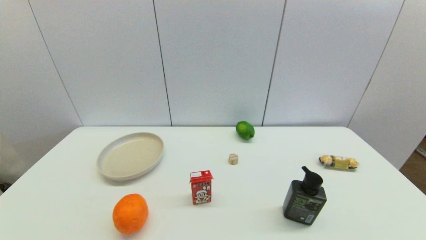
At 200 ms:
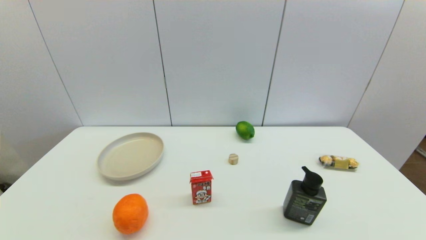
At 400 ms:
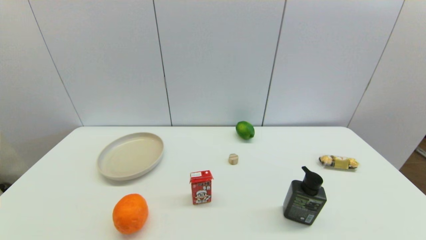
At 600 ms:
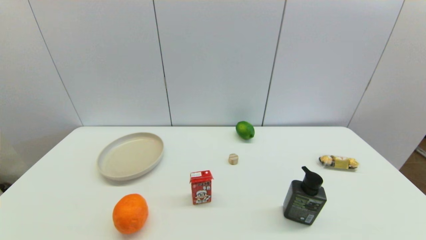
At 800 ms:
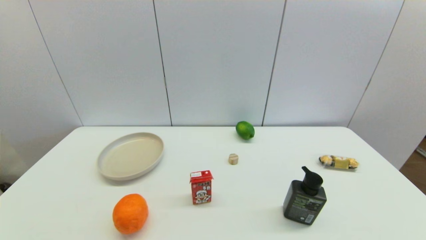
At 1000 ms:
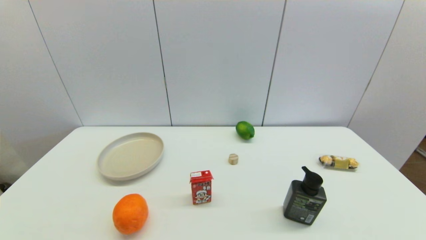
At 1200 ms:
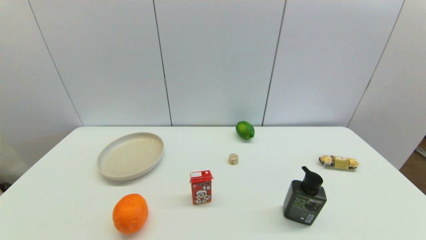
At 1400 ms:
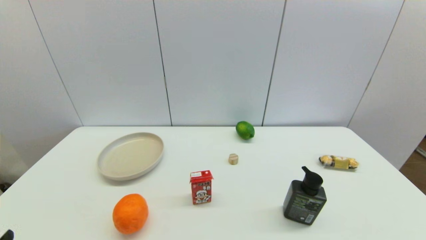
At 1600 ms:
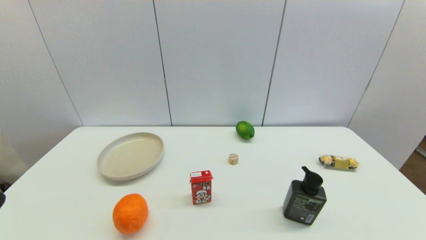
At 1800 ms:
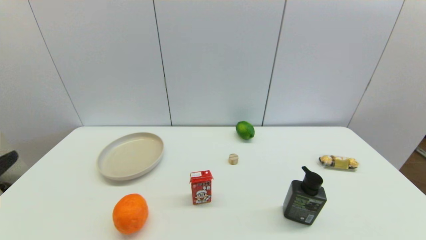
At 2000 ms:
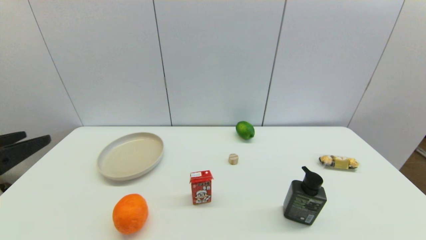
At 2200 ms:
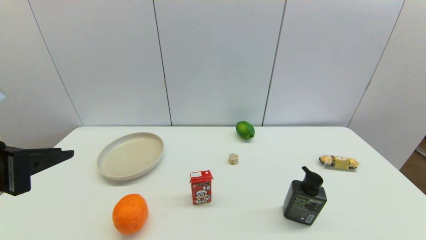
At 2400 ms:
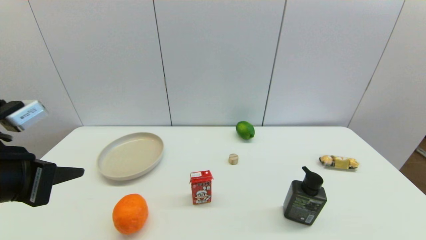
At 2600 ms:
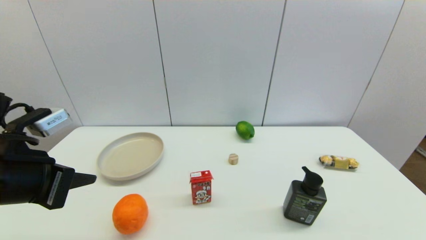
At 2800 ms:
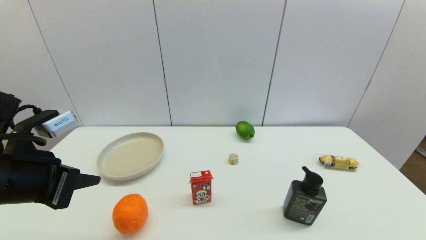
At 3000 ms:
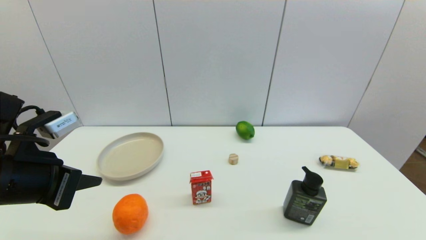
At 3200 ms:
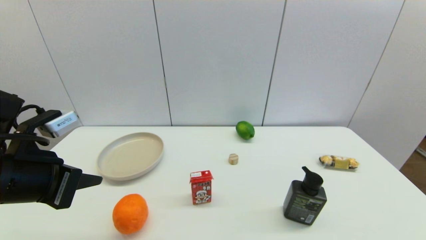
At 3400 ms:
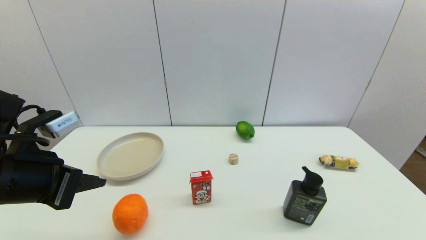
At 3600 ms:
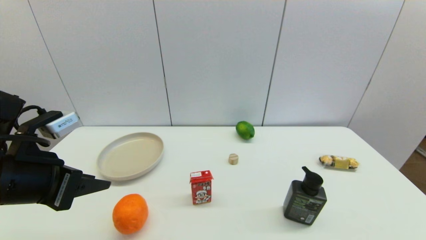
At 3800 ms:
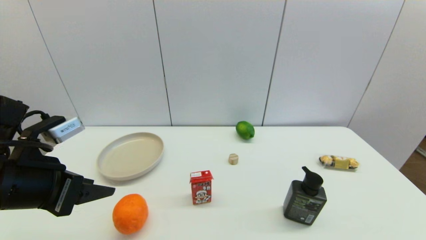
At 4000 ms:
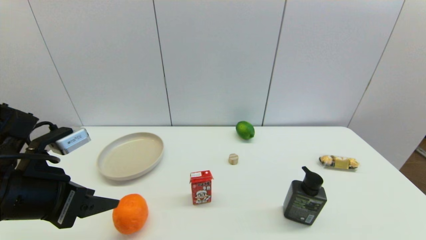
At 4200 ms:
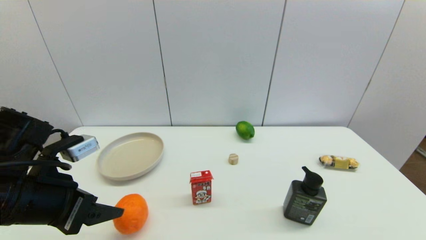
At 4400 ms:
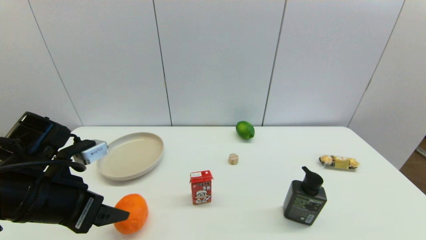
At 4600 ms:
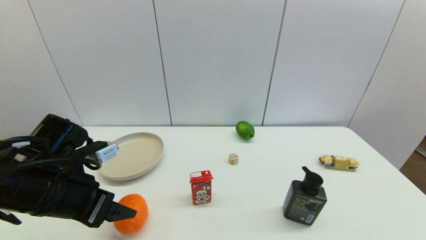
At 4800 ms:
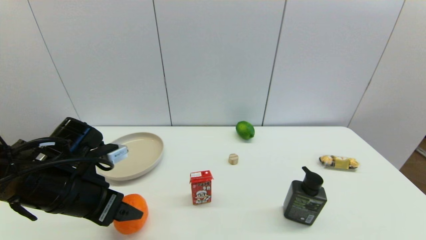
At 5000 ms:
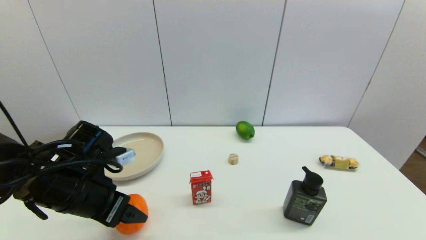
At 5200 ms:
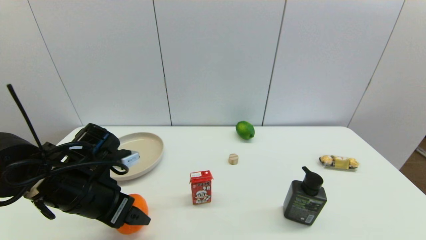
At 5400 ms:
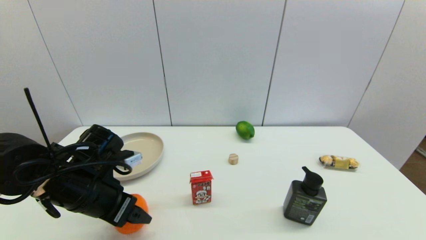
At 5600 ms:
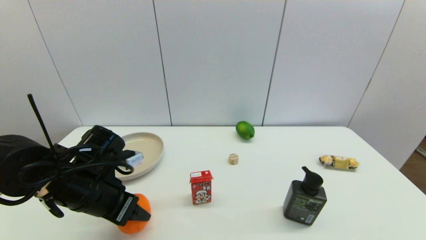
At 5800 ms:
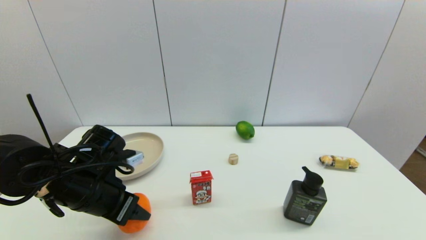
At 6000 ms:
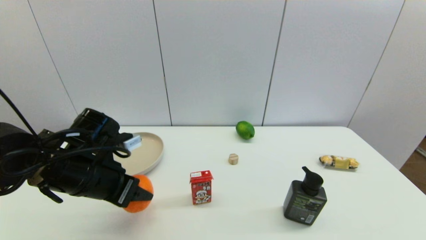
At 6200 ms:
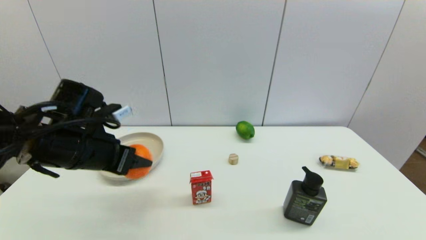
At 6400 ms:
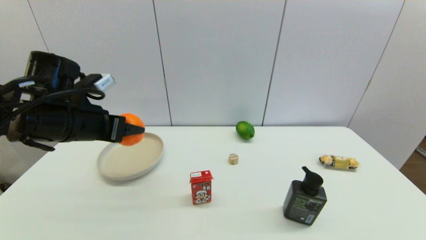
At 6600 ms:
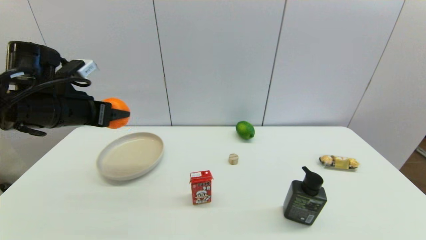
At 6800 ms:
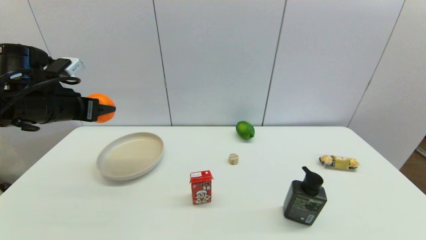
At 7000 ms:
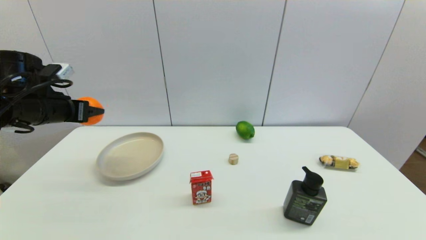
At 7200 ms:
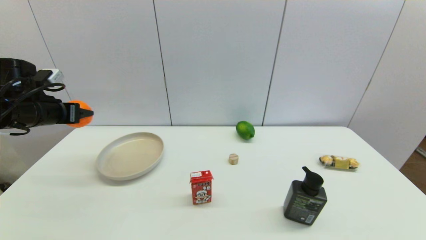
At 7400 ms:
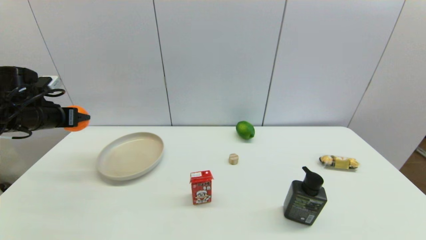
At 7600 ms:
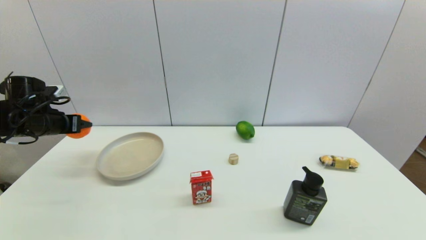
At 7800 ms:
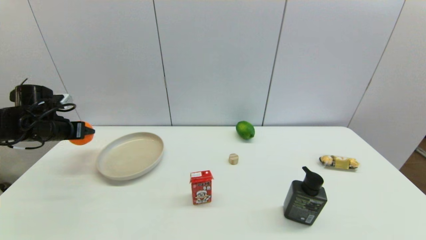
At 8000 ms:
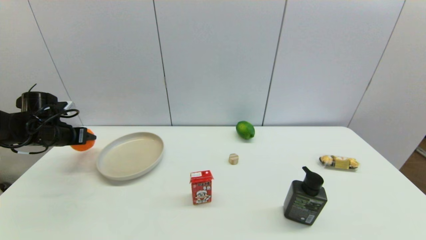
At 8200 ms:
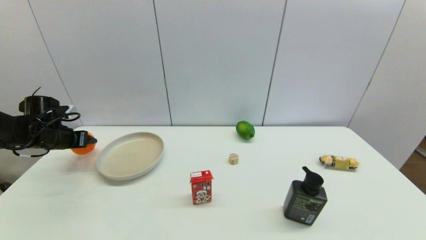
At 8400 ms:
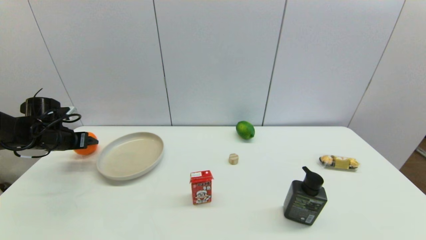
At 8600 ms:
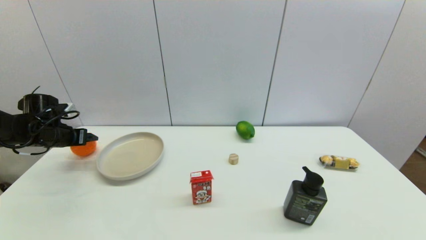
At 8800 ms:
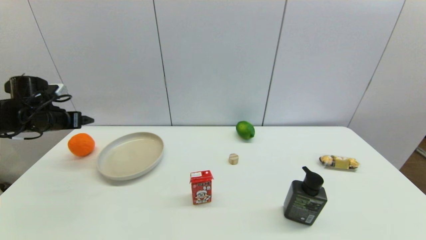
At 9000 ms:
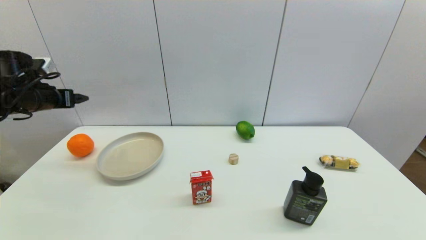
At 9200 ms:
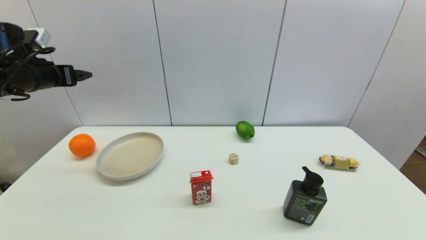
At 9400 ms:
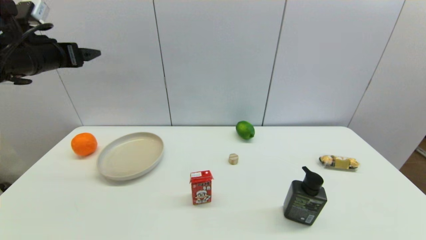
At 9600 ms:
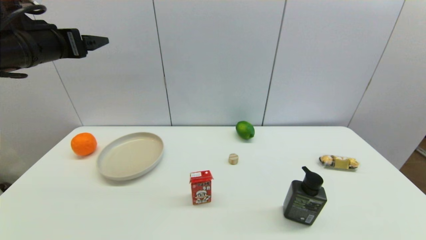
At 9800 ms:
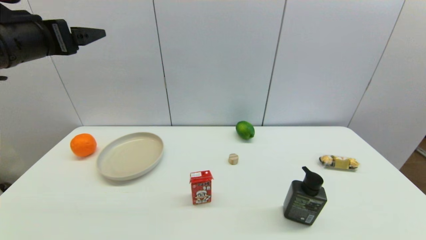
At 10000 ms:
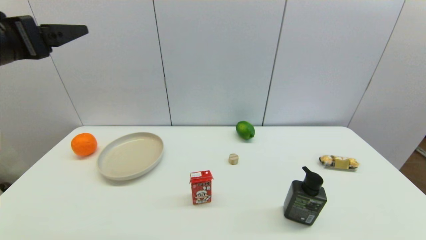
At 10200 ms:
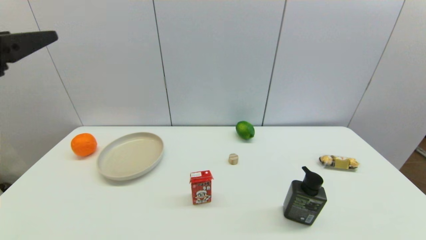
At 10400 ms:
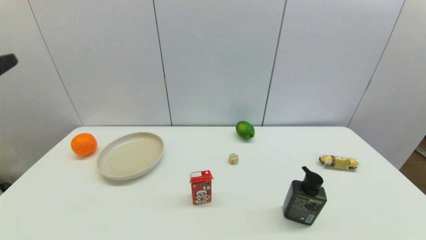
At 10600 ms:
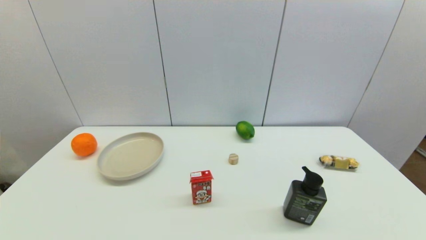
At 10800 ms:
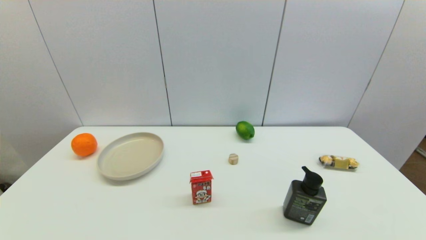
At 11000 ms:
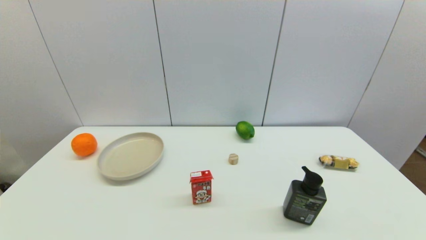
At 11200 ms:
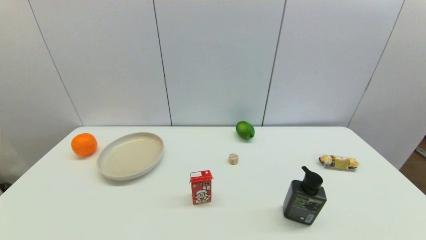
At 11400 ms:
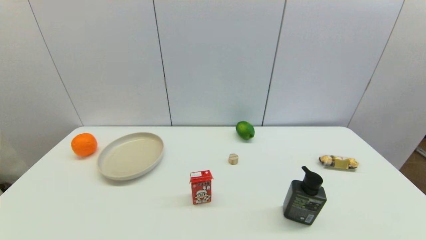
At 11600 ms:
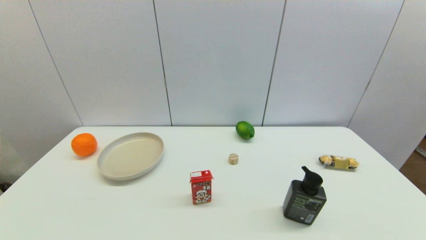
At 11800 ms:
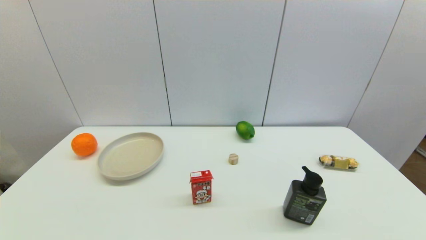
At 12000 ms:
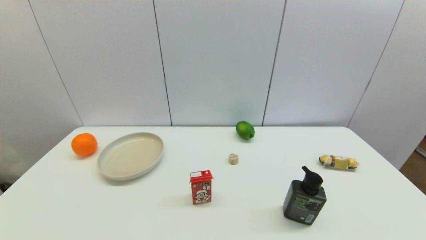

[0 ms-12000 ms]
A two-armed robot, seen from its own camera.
Step, 1400 ms to 5600 ms: Grasp the orange with left gripper.
Step, 6000 ms to 8400 ms: Place the orange on the table with left gripper.
1600 ms to 3000 ms: The left gripper is displaced forward by some 15 cm, and closes up.
3000 ms to 4400 ms: The left gripper changes place by approximately 5 cm, and opens.
4400 ms to 6000 ms: The left gripper heads forward, covering approximately 5 cm.
6000 ms to 7600 ms: The left gripper is displaced to the left and forward by some 20 cm.
7600 ms to 9000 ms: The left gripper shifts approximately 5 cm upward.
9000 ms to 10400 ms: The left gripper goes about 30 cm backward.

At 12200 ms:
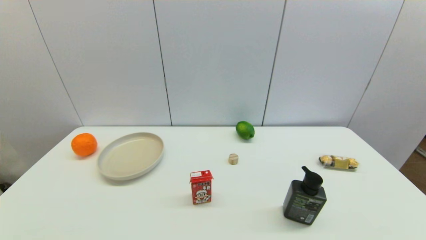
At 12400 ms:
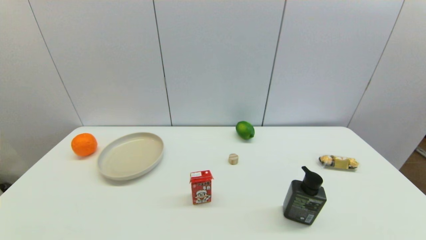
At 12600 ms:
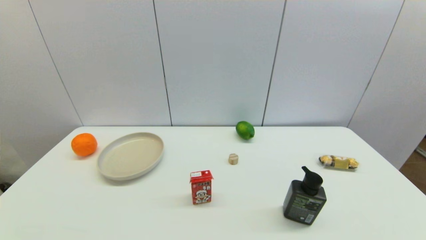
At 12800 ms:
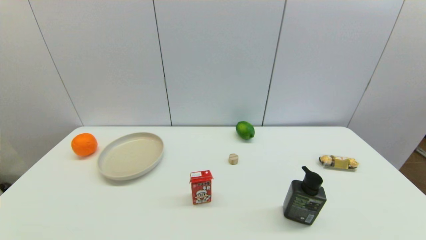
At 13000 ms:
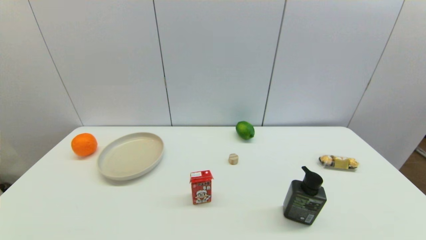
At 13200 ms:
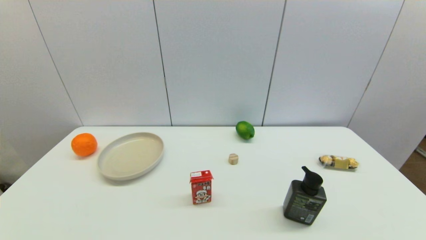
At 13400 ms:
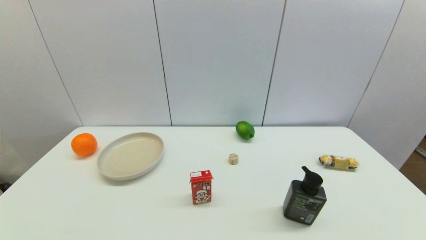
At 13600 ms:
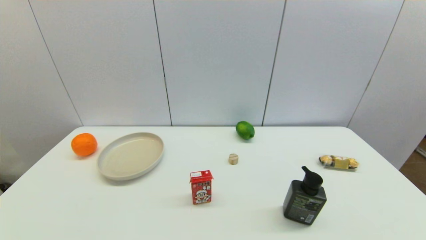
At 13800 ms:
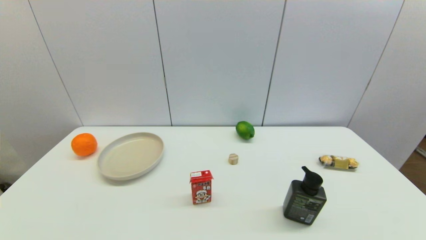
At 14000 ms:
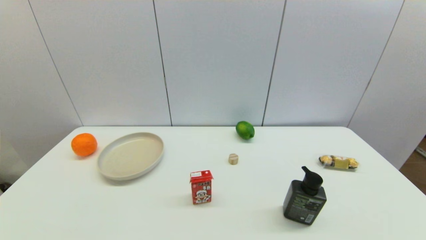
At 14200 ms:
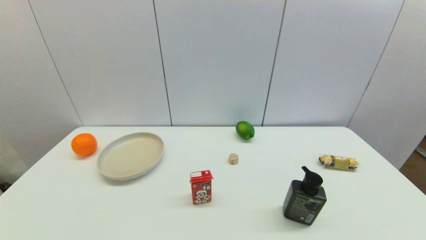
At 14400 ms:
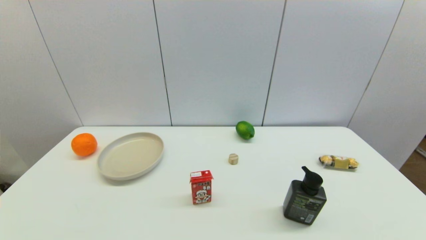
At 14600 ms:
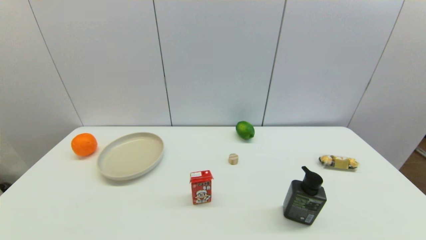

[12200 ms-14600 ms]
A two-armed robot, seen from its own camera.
12200 ms to 14600 ms: Both grippers stay about where they are.
